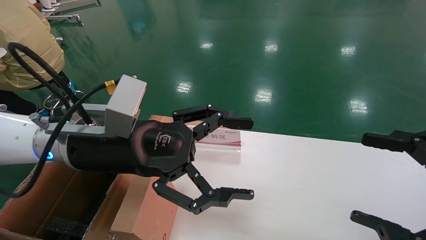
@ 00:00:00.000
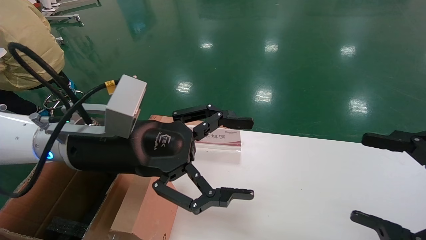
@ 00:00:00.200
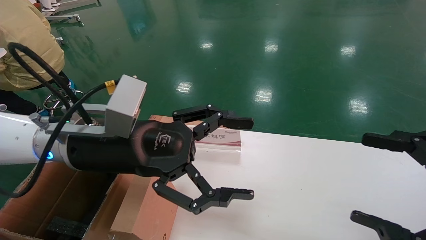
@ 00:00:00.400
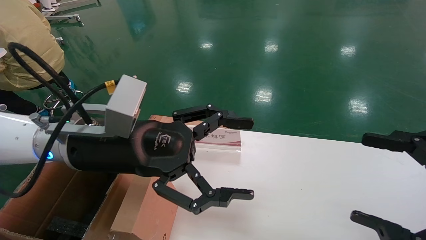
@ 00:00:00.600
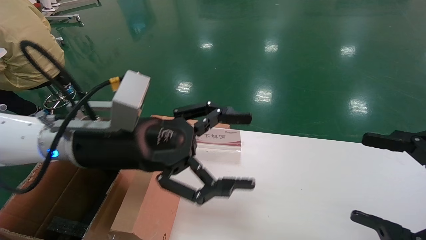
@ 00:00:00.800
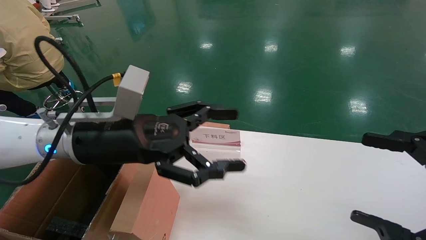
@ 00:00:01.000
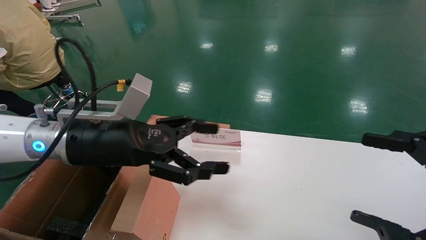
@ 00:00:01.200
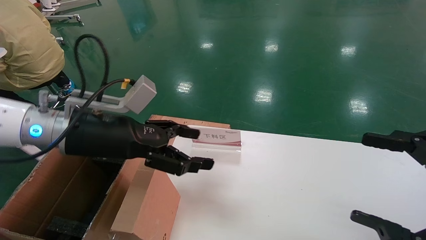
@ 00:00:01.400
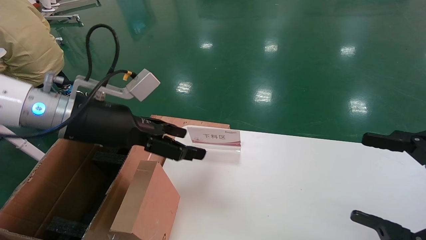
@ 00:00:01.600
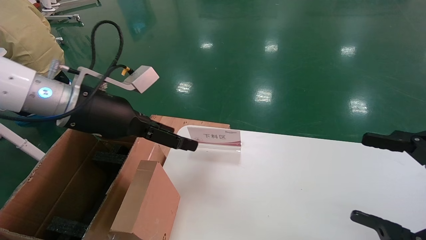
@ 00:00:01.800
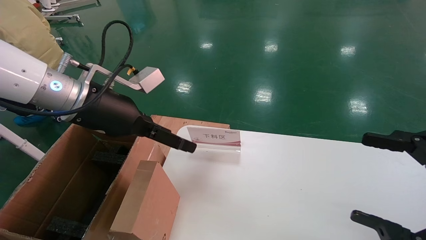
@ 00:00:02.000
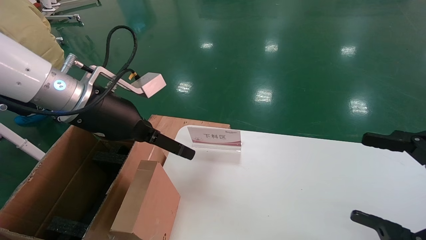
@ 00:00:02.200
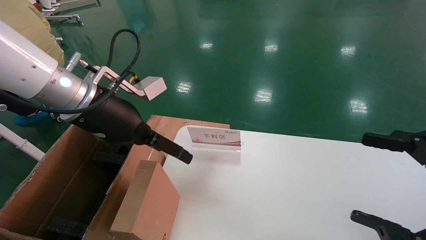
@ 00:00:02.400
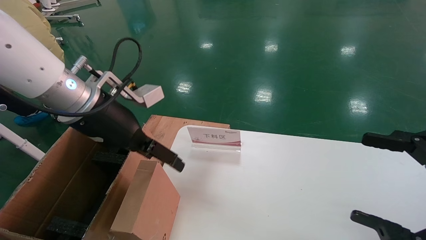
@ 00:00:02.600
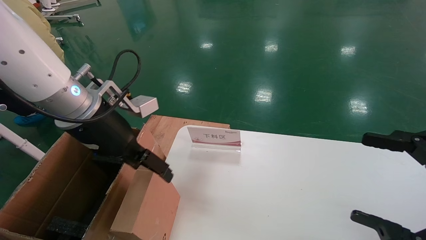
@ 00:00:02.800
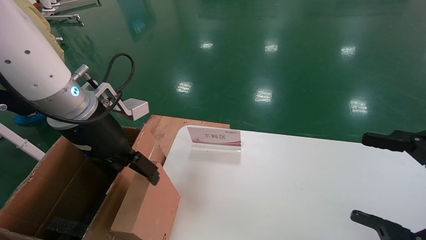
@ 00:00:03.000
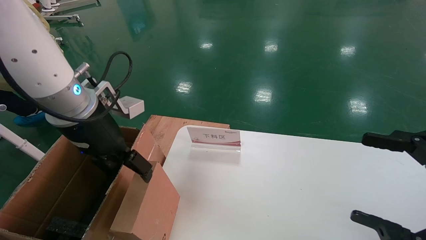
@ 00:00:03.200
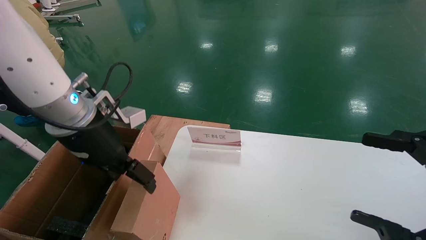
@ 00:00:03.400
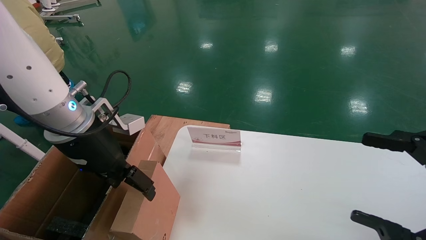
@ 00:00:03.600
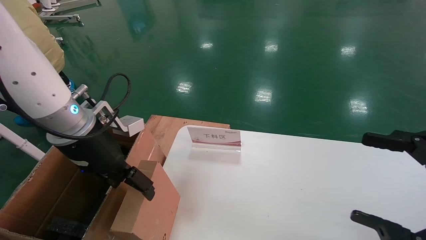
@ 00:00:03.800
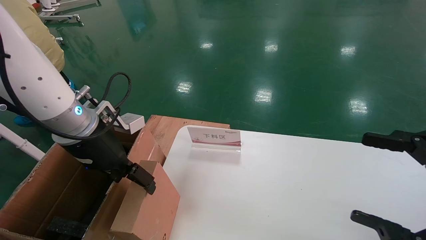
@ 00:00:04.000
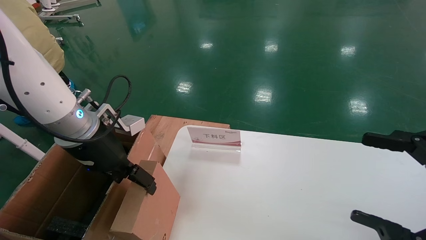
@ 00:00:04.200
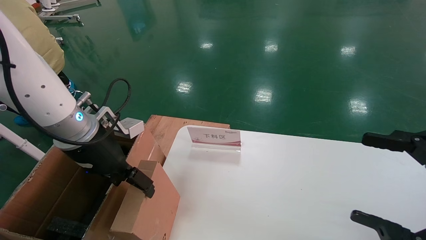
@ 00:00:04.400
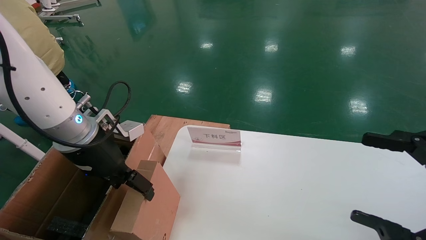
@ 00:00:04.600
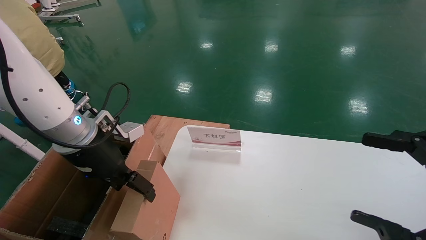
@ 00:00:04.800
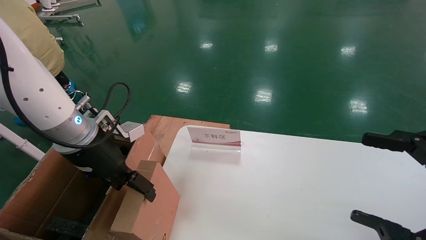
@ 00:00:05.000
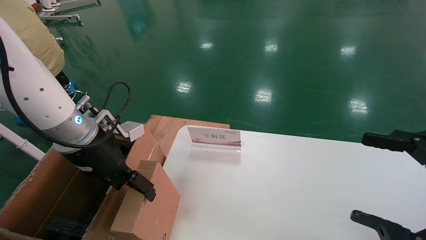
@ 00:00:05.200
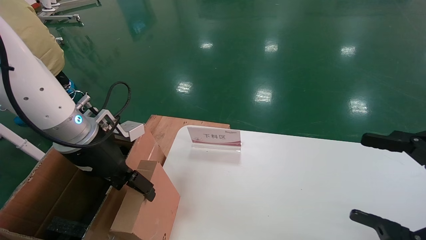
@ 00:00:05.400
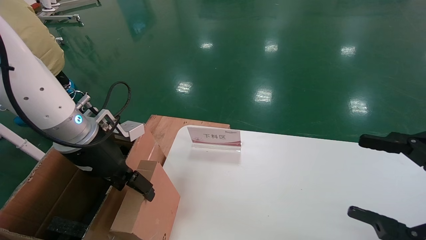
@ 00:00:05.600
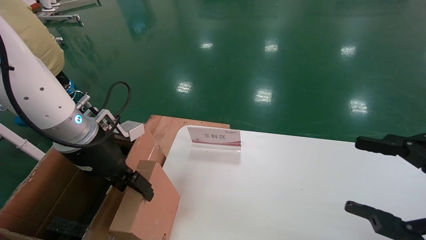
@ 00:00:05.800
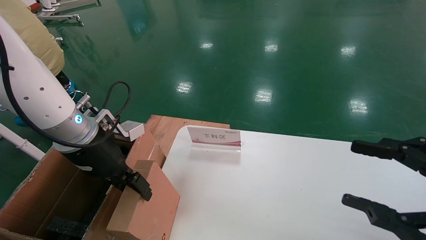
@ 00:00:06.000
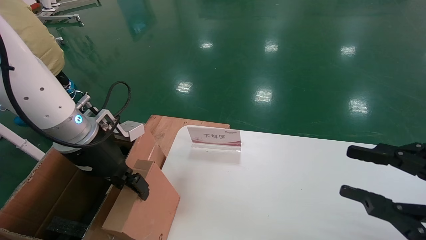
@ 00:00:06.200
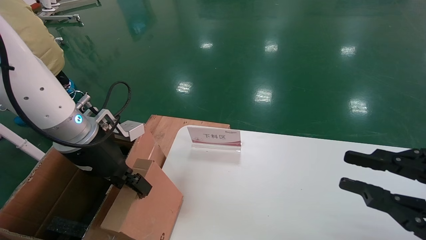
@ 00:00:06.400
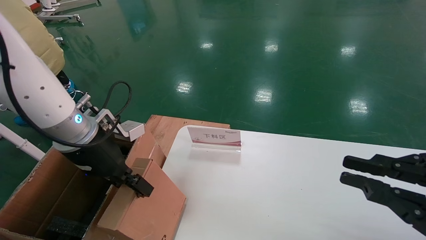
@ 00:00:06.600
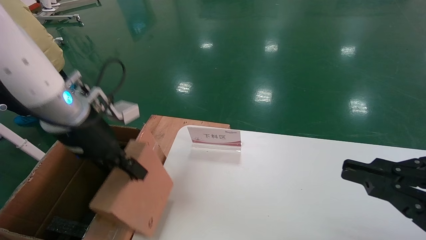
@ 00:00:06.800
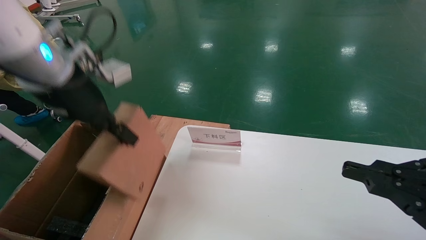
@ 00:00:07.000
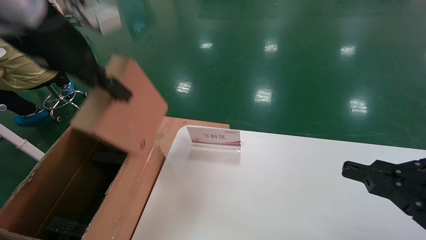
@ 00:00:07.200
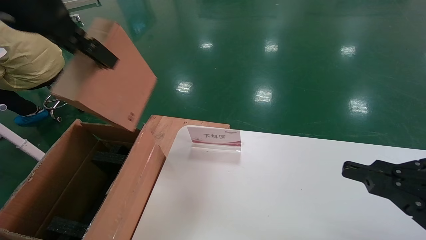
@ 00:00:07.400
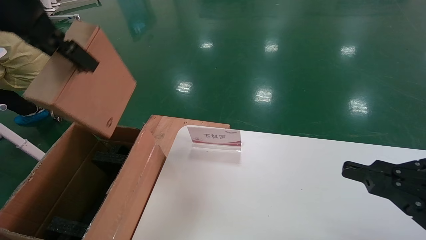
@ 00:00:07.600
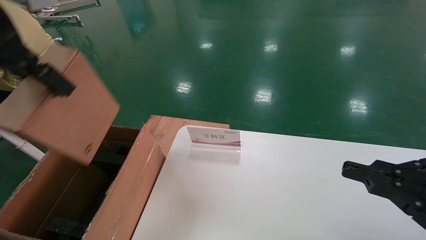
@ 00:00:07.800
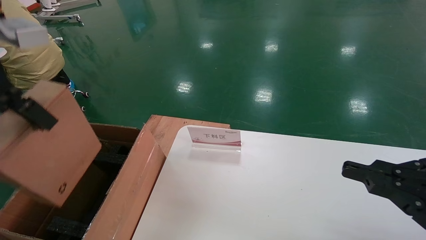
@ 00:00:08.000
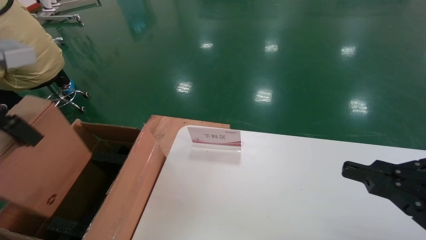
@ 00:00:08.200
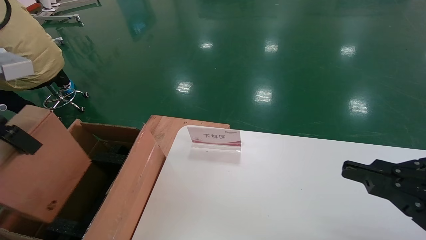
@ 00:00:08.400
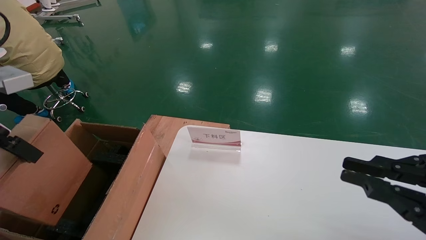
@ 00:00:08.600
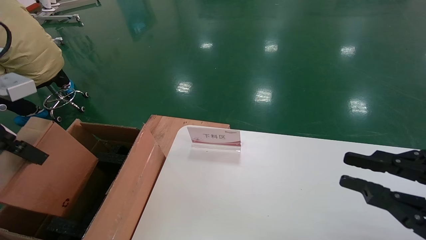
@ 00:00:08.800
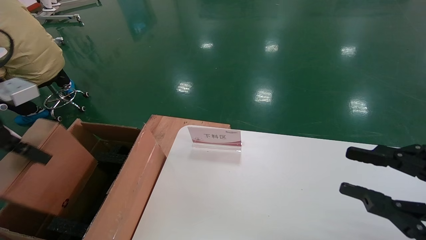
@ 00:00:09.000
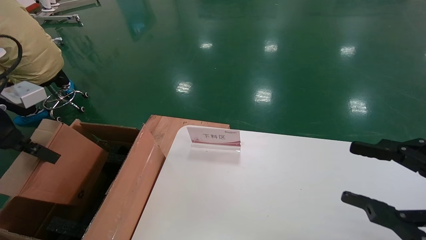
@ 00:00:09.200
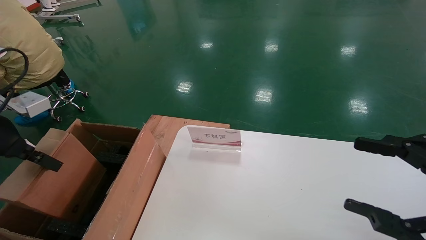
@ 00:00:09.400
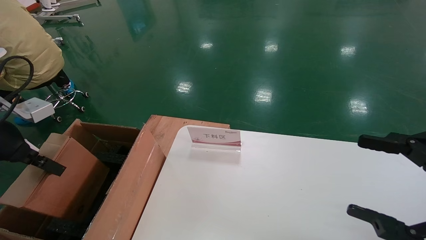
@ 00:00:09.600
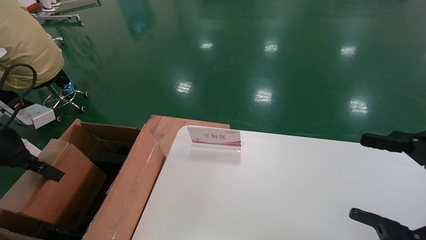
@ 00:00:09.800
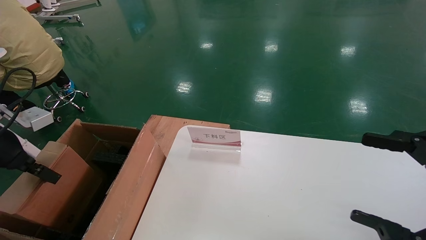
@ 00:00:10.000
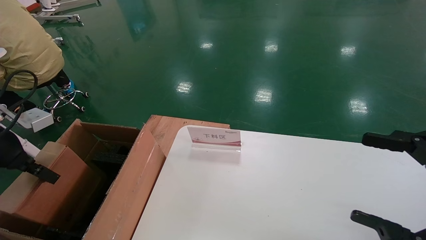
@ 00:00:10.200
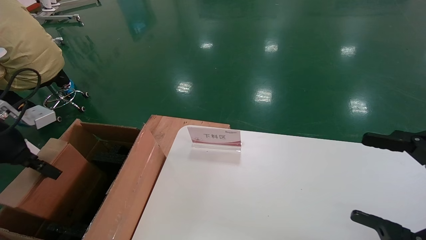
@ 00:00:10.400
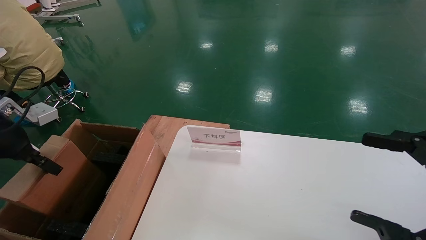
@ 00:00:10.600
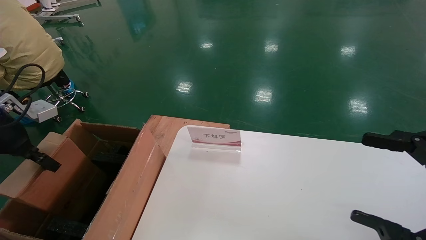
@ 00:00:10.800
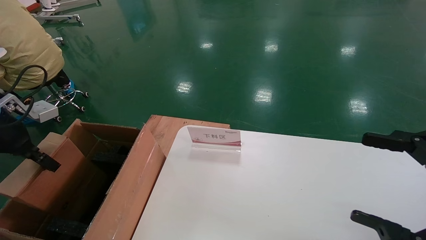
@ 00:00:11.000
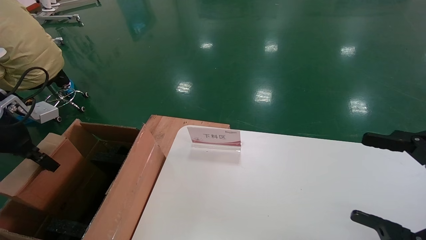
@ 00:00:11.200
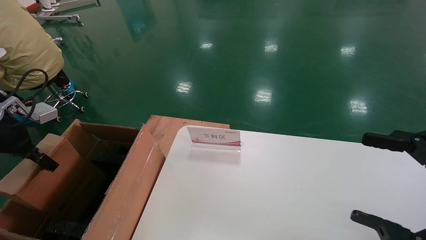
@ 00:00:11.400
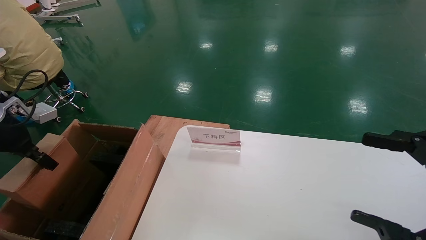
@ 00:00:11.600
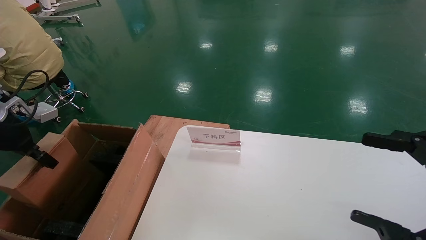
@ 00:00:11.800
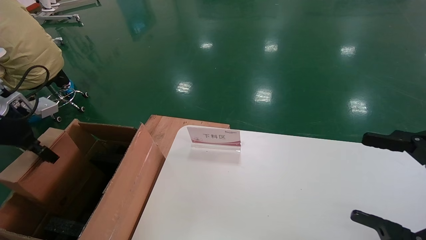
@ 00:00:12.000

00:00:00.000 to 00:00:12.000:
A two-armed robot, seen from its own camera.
Task of the whole recording: pick up the small cardboard box and load it into the large cardboard box.
Step, 00:00:01.400 to 00:00:06.400: Pick up the mouse and power cord box.
00:00:00.000 to 00:00:01.600: The left gripper moves to the left, roughly 5 cm.
00:00:03.000 to 00:00:04.400: The left gripper changes place by approximately 5 cm.
00:00:04.400 to 00:00:06.000: Both grippers stay about where they are.
00:00:06.000 to 00:00:07.600: The left gripper travels upward by about 25 cm, and closes its fingers, while the right gripper closes.
00:00:07.600 to 00:00:09.000: The left gripper heads downward and to the left, covering about 20 cm.
00:00:09.000 to 00:00:10.400: The right gripper opens its fingers. The left gripper moves downward, approximately 5 cm.
00:00:10.400 to 00:00:12.000: The left gripper heads to the left and forward, covering some 10 cm.

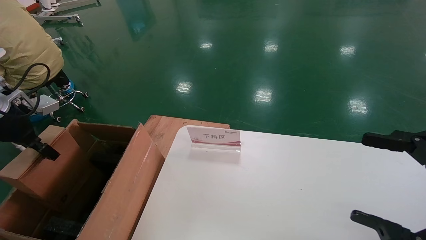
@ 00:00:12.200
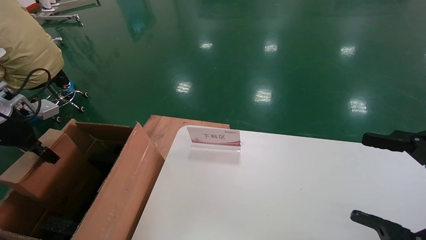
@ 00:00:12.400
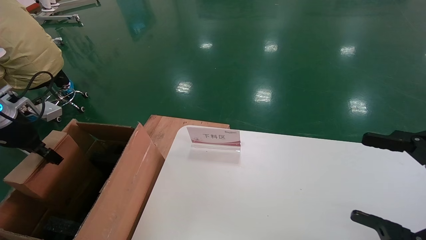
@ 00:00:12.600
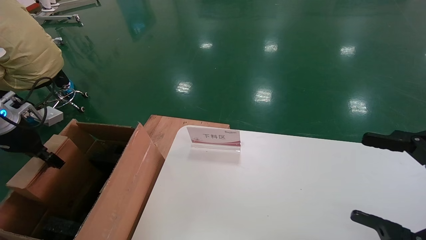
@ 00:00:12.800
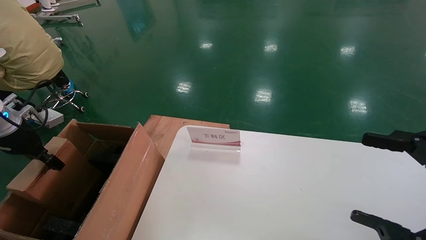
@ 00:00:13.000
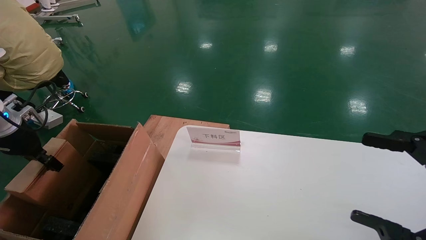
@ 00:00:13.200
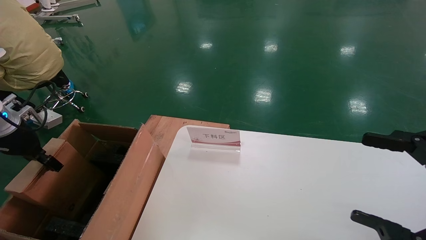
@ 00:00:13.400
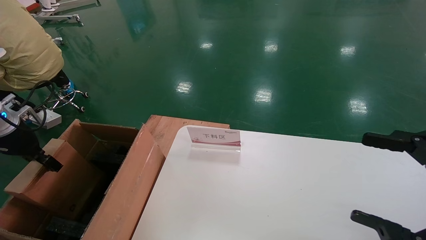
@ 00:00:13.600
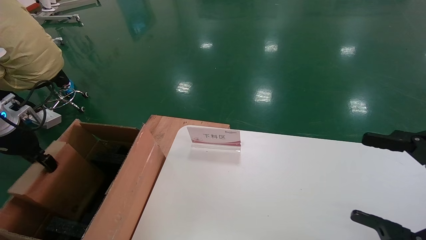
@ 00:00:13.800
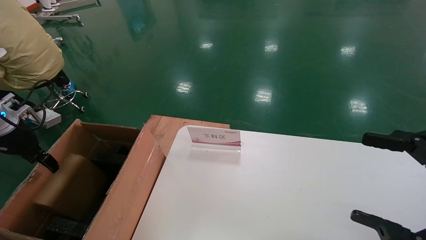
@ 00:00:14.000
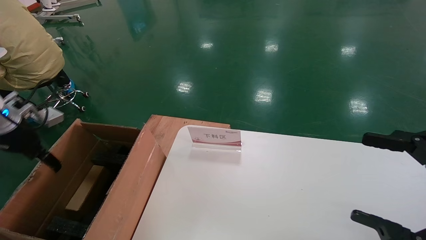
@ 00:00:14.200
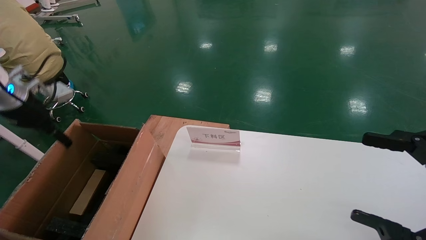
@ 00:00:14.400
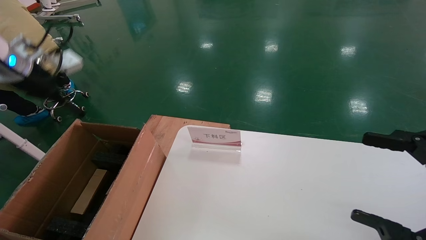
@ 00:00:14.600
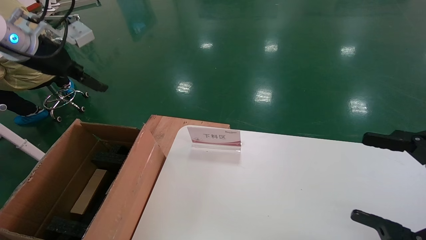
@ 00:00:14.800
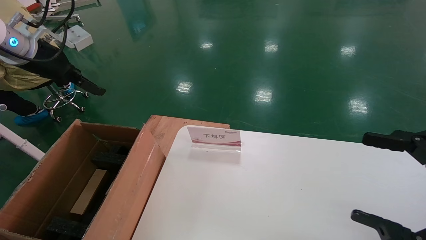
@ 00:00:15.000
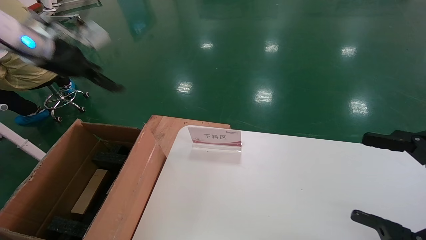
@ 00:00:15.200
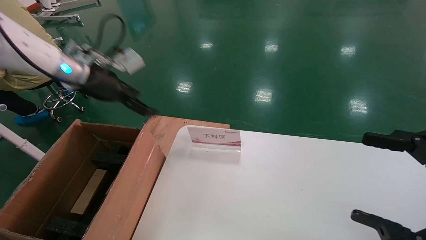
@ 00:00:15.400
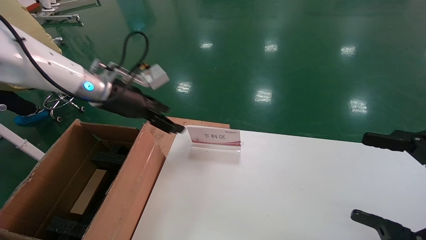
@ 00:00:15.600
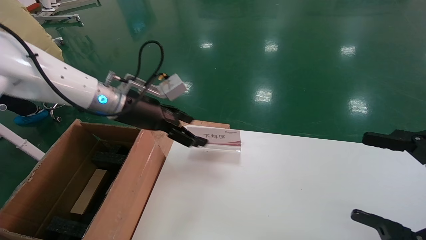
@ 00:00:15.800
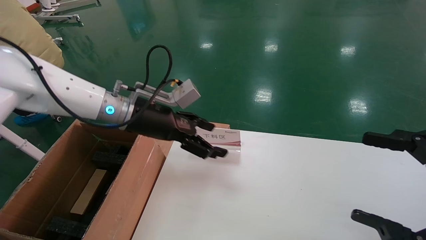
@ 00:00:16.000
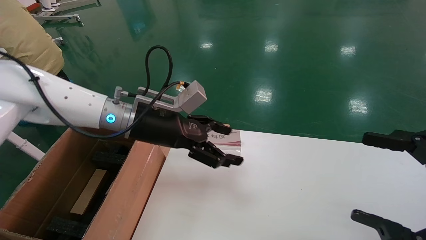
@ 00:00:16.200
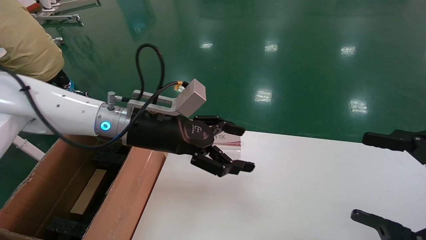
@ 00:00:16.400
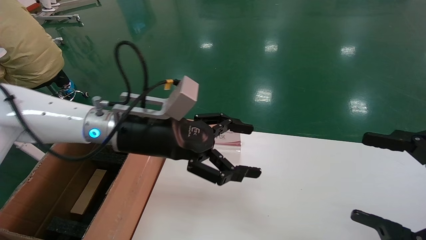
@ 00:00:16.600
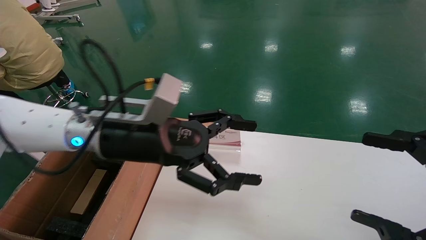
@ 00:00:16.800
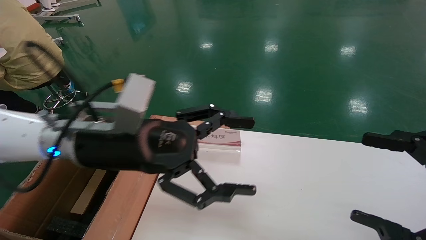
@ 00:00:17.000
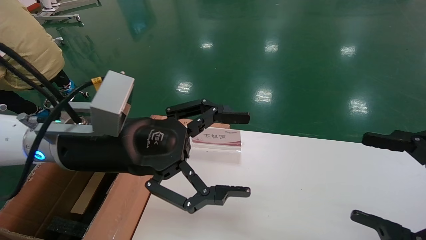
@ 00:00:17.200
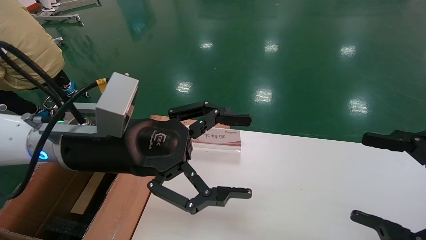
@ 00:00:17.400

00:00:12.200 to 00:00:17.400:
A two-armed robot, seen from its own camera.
Task of the whole recording: pick up the small cardboard box and load it into the large cardboard box.
00:00:12.200 to 00:00:14.000: The left gripper opens up.
00:00:14.000 to 00:00:15.600: The left gripper shifts approximately 20 cm to the right, and opens up.
00:00:15.600 to 00:00:17.400: The left gripper heads backward and to the right, covering about 20 cm.
